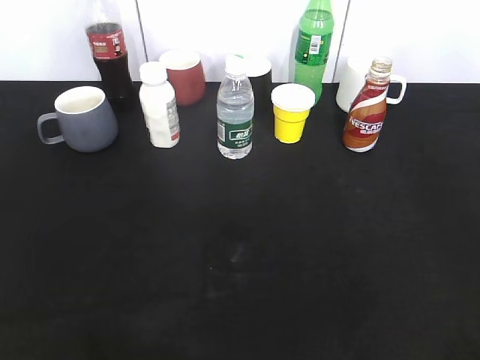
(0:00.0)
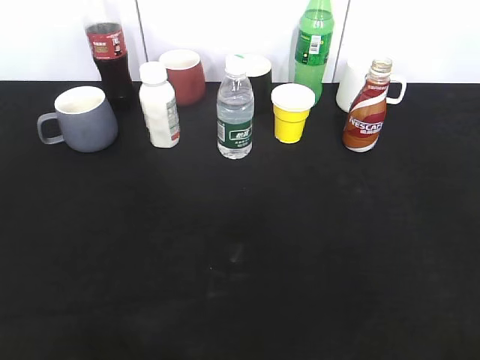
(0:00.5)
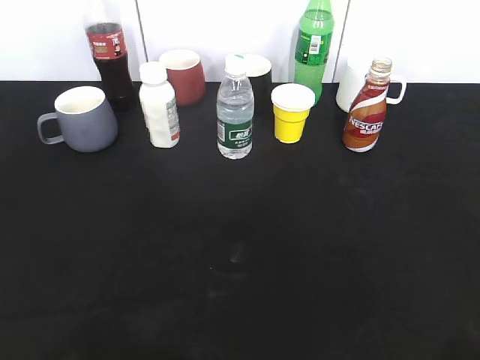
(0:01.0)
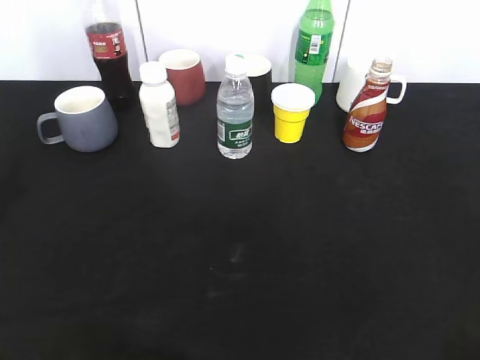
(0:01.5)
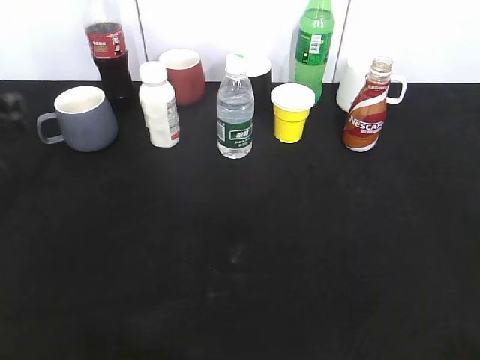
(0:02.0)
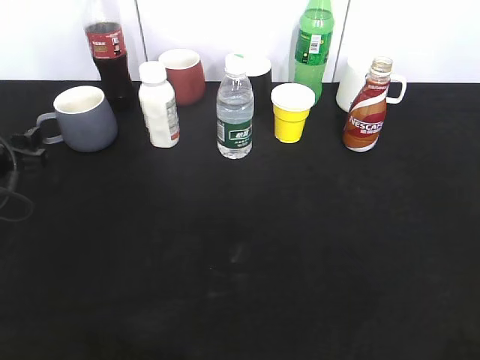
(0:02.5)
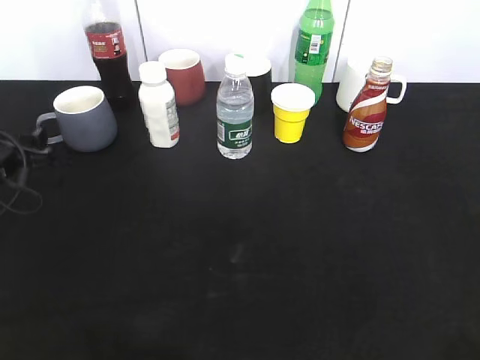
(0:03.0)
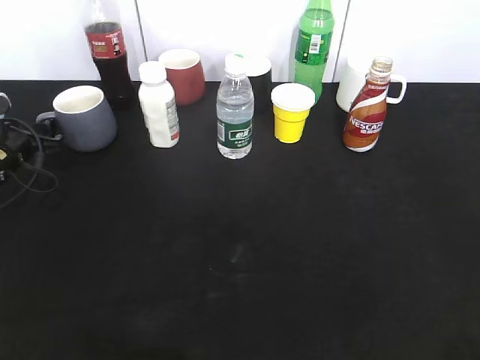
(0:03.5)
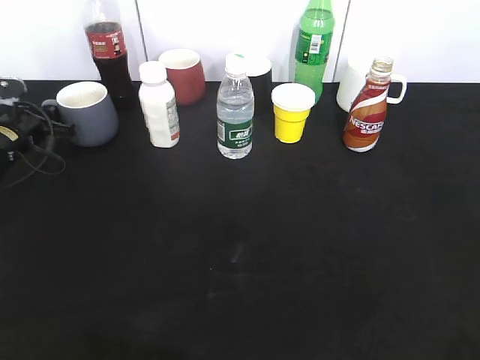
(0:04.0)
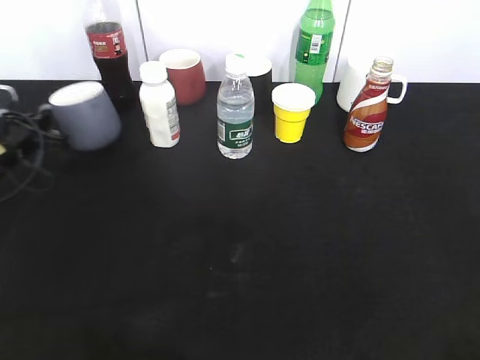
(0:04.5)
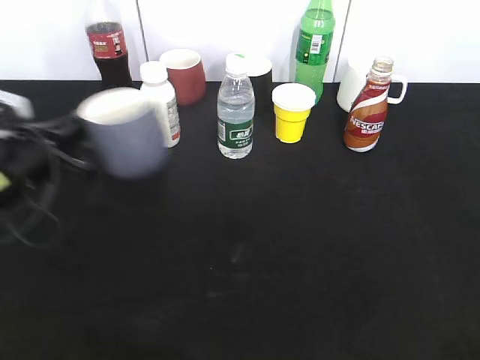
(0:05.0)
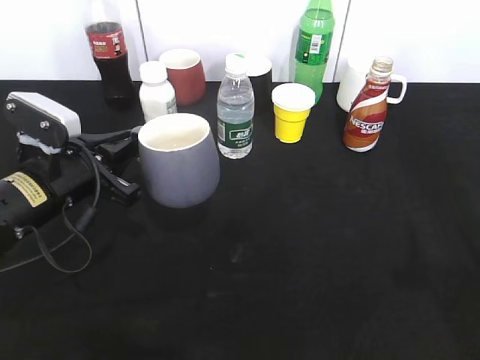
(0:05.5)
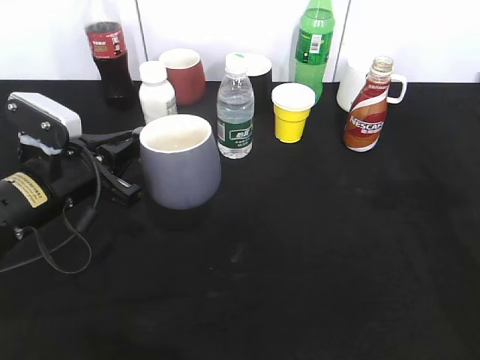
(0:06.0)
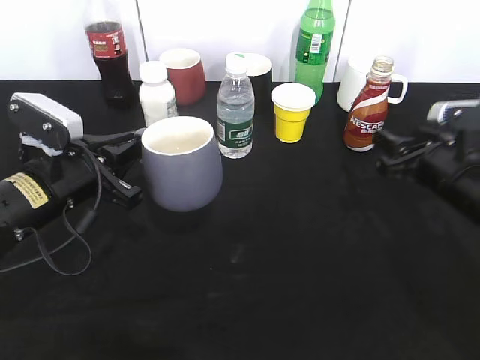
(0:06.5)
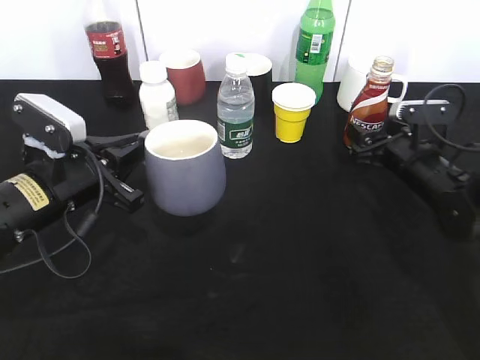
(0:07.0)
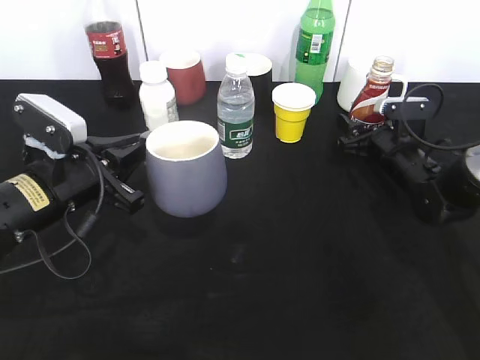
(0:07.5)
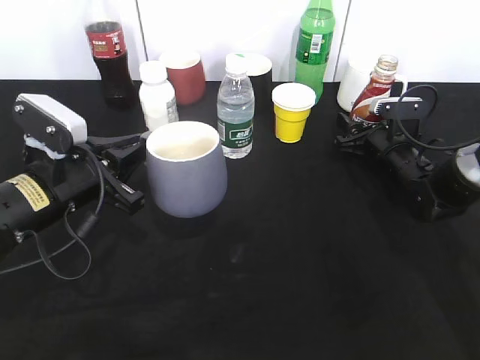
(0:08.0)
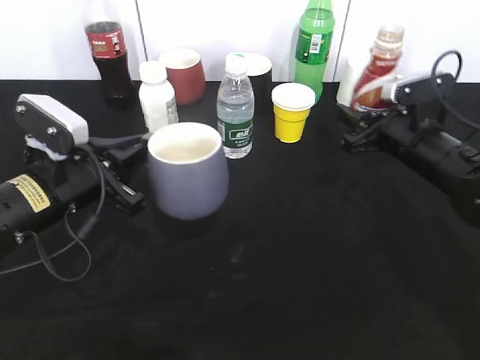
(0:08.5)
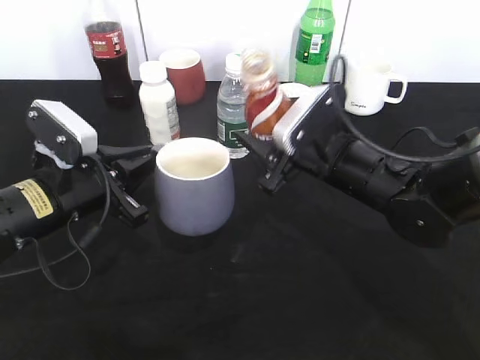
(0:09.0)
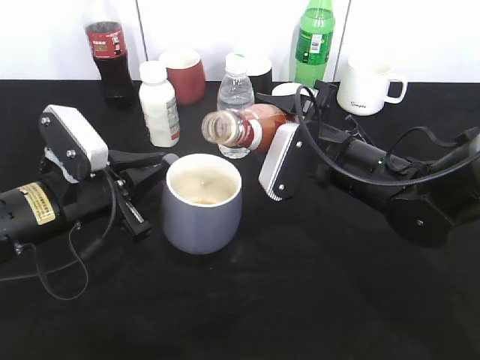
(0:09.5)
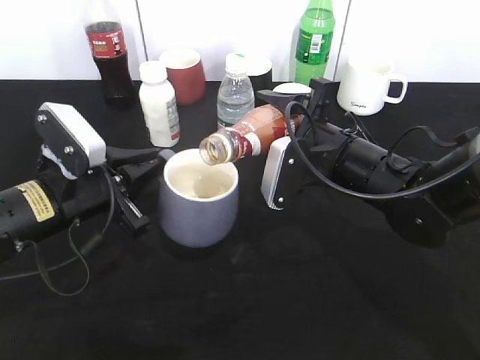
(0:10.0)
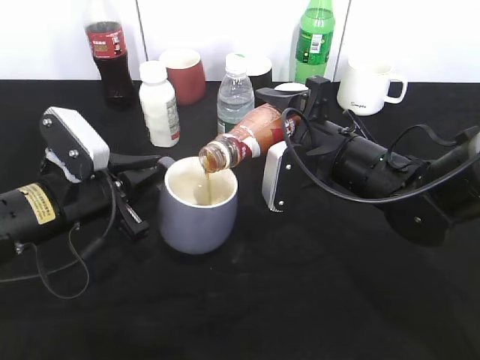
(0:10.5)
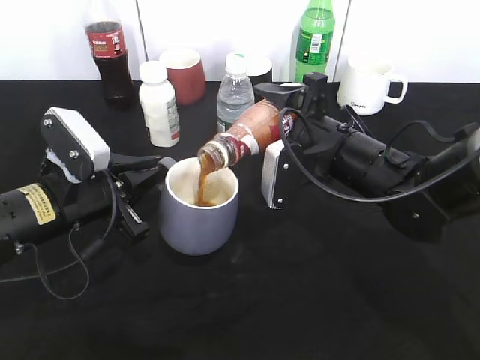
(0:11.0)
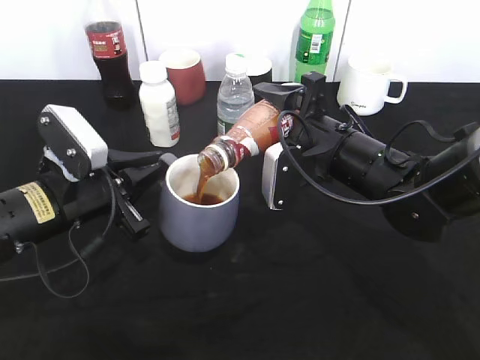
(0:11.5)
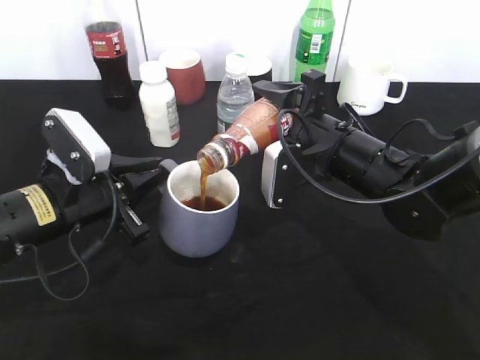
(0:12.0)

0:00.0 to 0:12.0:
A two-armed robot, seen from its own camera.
Step, 0:02.0 to 0:04.0: Grasp the grey cup with left gripper.
Step, 0:04.5 to 0:05.5: Lift the grey cup with left gripper.
Step, 0:06.0 to 0:08.0: Grasp the bottle with coffee with right gripper.
0:02.0 to 0:04.0: The left gripper moves forward and downward, roughly 15 cm, and closes its fingers.
0:04.0 to 0:06.0: The right gripper heads forward, covering roughly 25 cm. The left gripper goes approximately 20 cm backward and to the right, and closes its fingers.
0:06.0 to 0:08.0: The right gripper shifts some 25 cm downward and forward, and opens, then closes again.
0:08.0 to 0:10.0: The right gripper shifts about 20 cm to the left, backward and upward.
0:10.0 to 0:12.0: The grippers make only small movements.

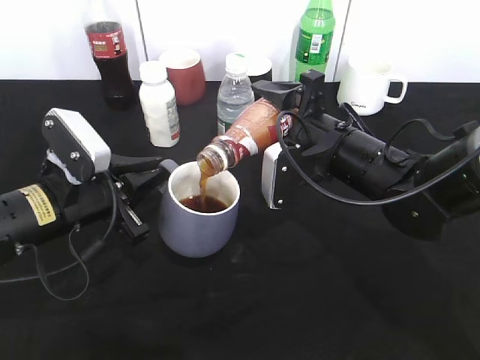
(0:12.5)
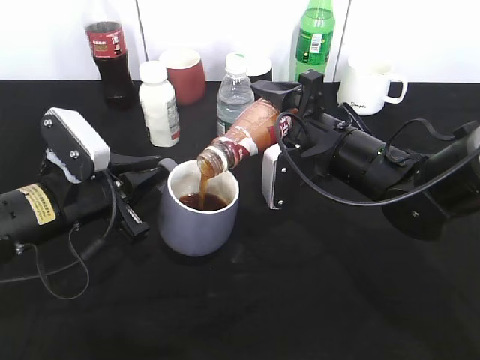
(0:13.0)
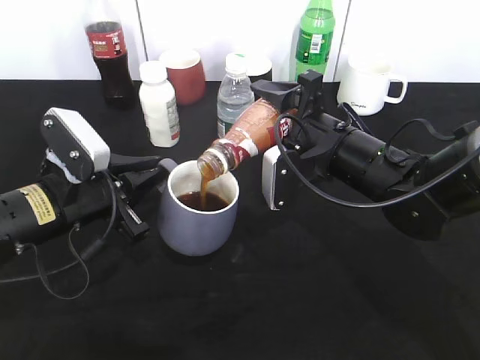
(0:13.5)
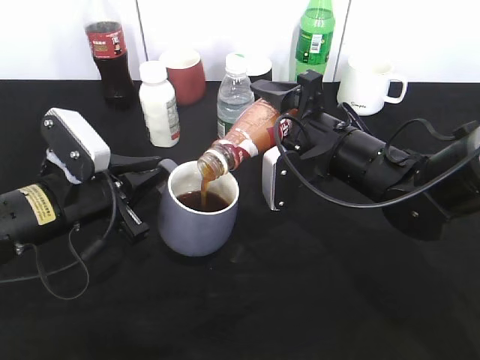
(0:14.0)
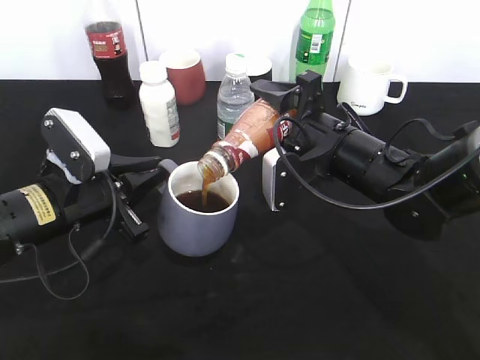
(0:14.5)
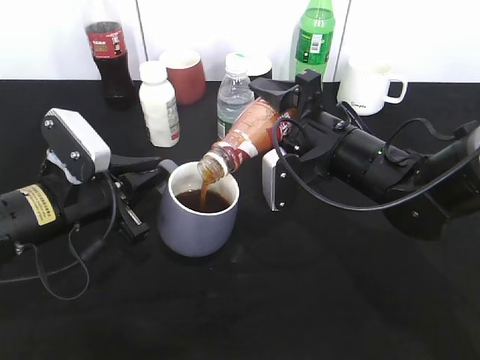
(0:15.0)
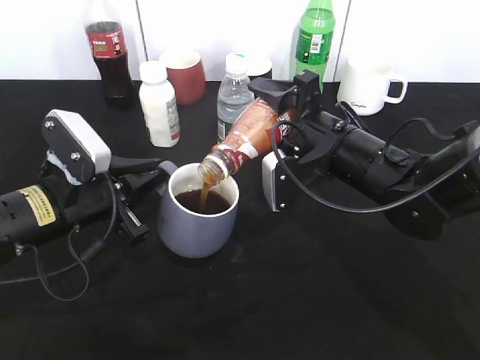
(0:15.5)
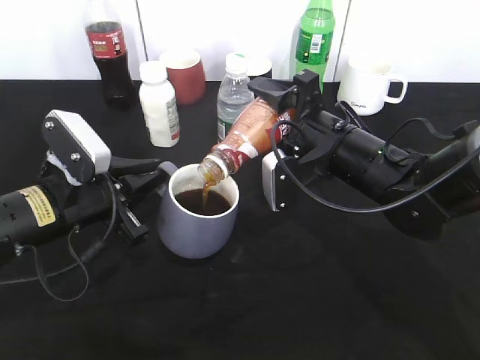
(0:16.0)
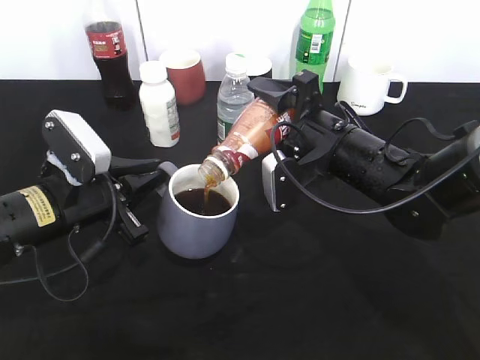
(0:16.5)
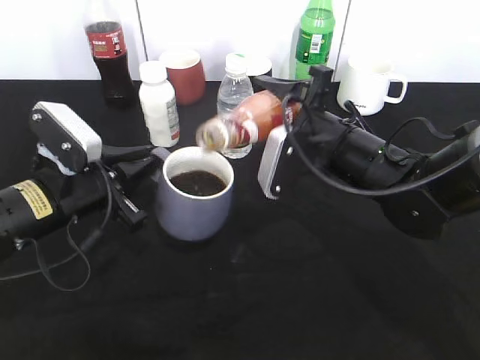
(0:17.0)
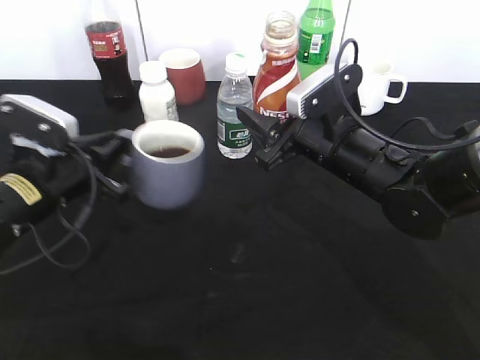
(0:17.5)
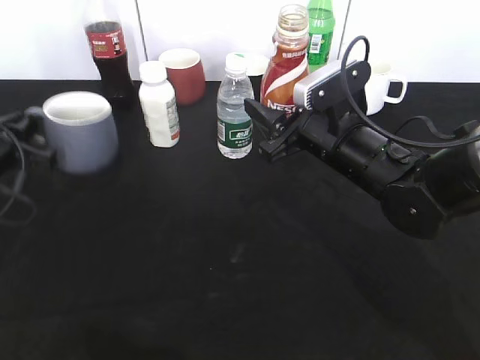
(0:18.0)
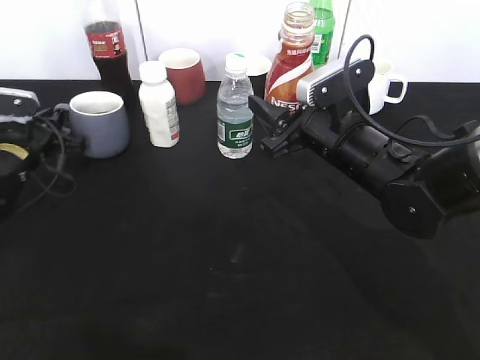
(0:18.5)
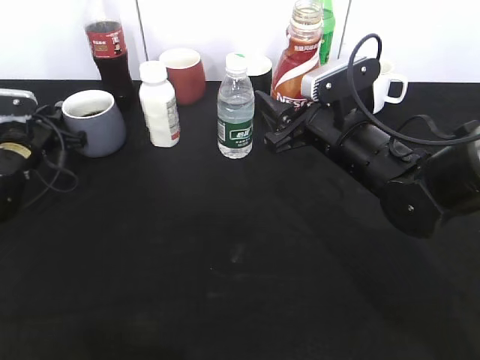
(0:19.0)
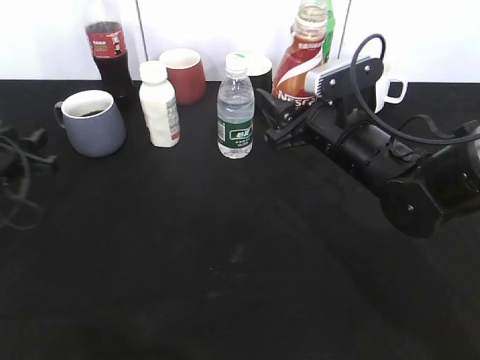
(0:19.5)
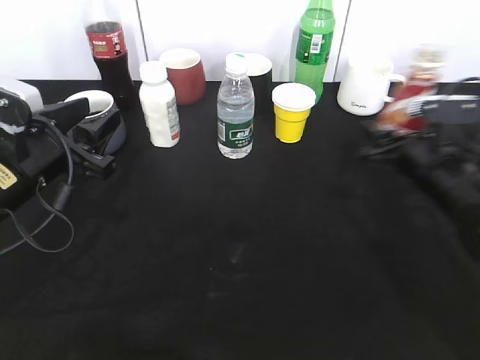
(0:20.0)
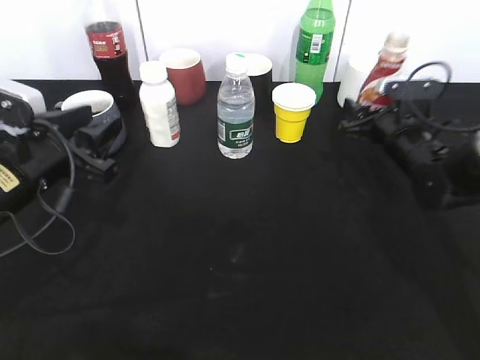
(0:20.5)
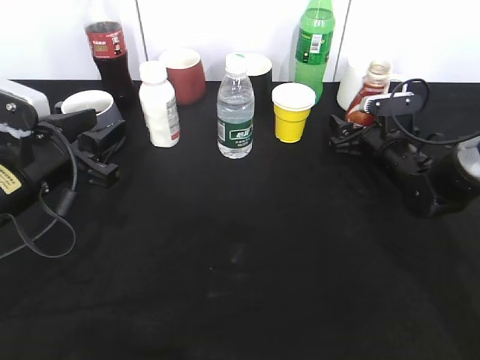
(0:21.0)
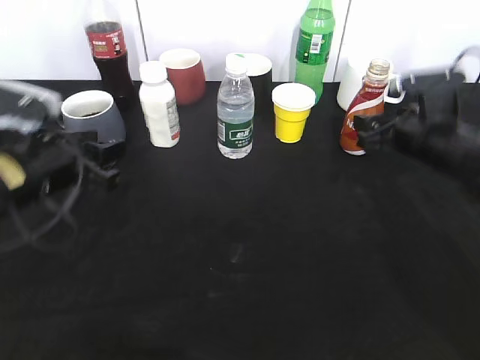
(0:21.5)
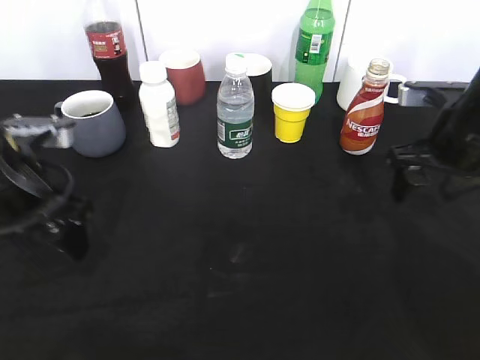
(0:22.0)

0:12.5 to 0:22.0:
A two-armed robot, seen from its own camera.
Step, 0:12.5 to 0:17.0: Pour the coffee from bottle to cup with right gripper.
Step, 0:17.5 to 0:19.0: Place the grey cup on the table with left gripper.
Step, 0:19.5 to 0:21.0: Place the coffee bottle on the table with right gripper.
0:12.5 to 0:16.5: The grippers stay close to where they were, moving slightly.
0:16.5 to 0:18.0: The left gripper heads to the left and forward, covering about 10 cm.
0:18.0 to 0:20.0: The right gripper is displaced to the right by approximately 10 cm; the left gripper is displaced to the right by roughly 10 cm, reaches roughly 10 cm forward, then returns, and opens.
0:20.0 to 0:22.0: The right gripper heads upward, covering some 5 cm, and opens.

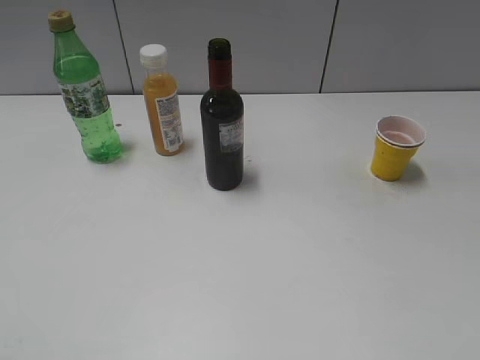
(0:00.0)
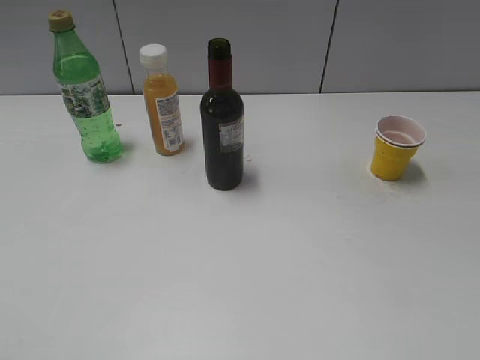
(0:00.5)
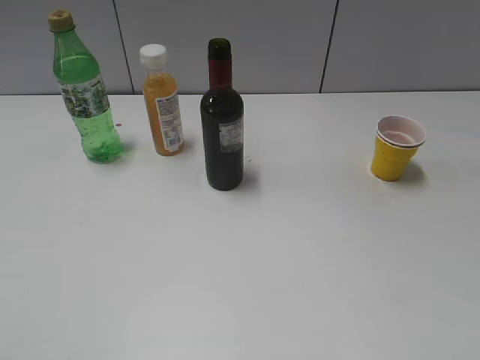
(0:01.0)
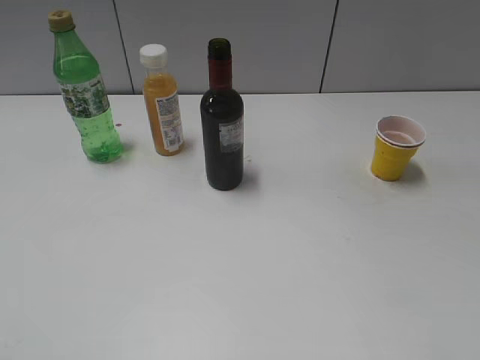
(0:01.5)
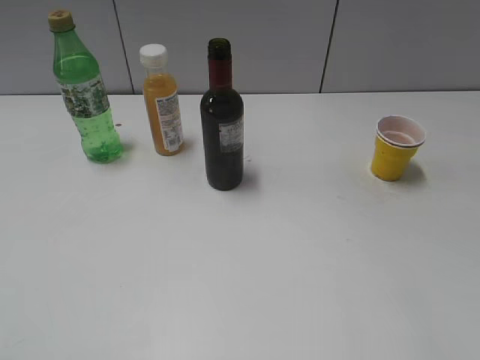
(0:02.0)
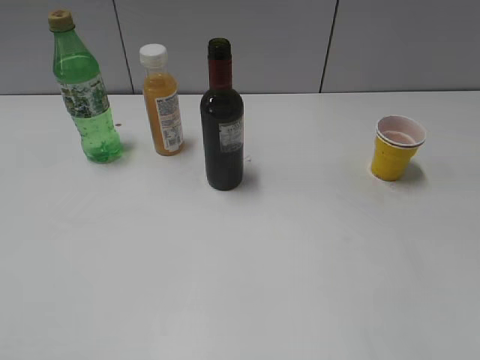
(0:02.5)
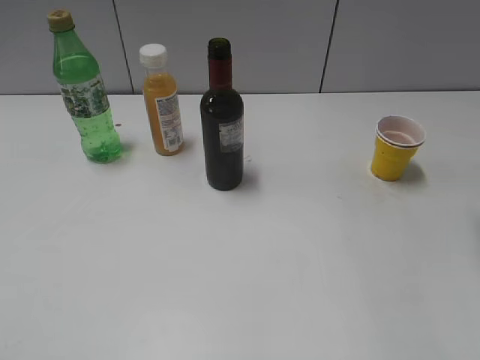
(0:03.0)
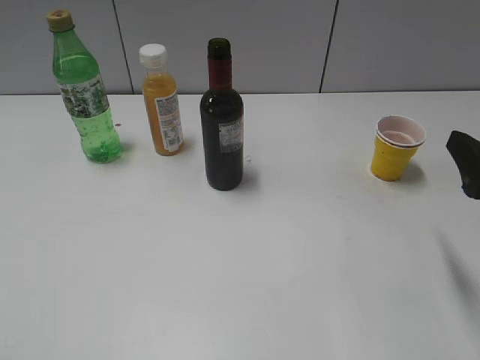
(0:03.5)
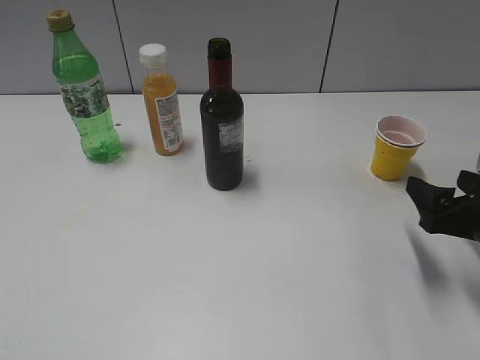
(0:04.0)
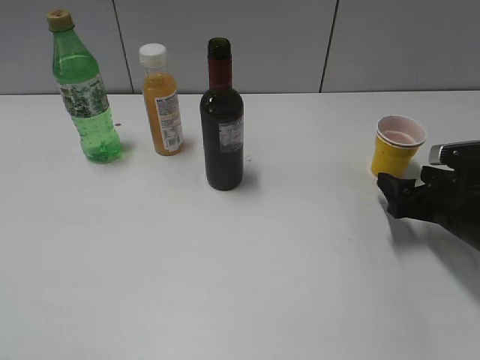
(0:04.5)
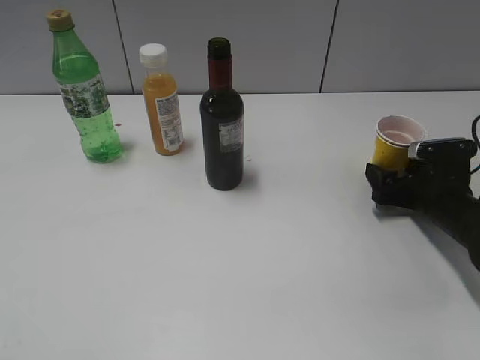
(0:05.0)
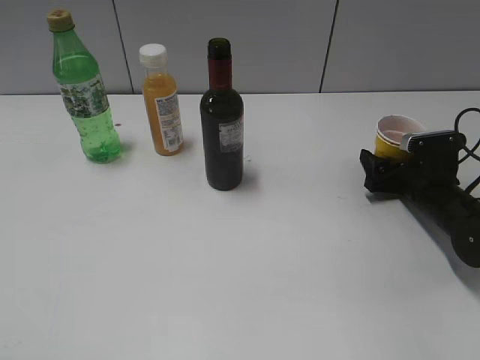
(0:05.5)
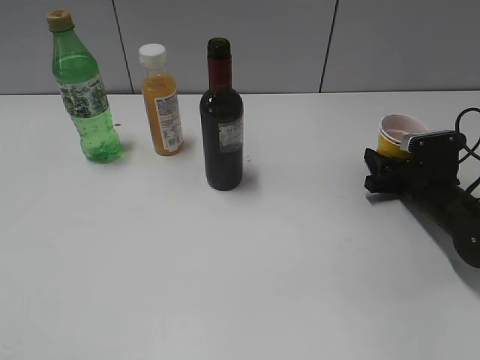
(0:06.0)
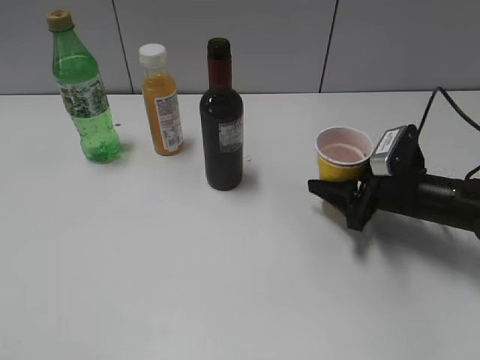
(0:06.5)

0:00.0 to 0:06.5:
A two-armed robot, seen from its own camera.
Step, 0:01.0 to 0:05.5: Grasp the yellow paper cup with right gripper.
0:02.0 to 0:04.5: The right gripper heads downward and forward, covering about 30 cm.
0:04.5 to 0:06.5: The right gripper shifts approximately 5 cm to the left, and closes up.
